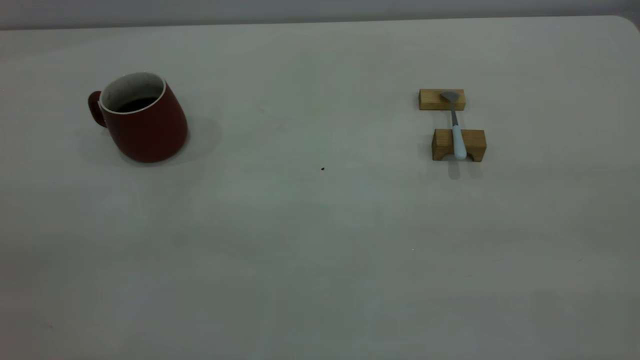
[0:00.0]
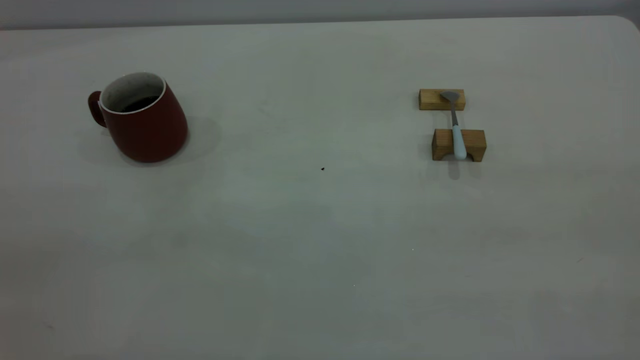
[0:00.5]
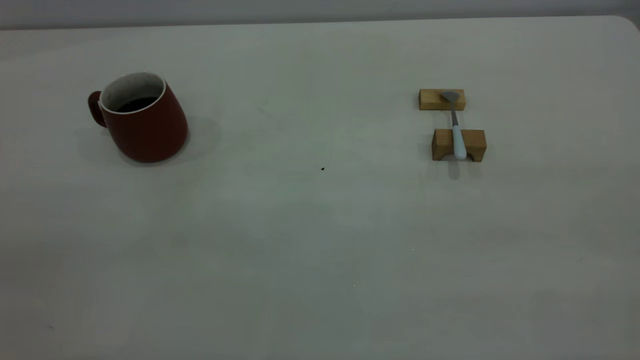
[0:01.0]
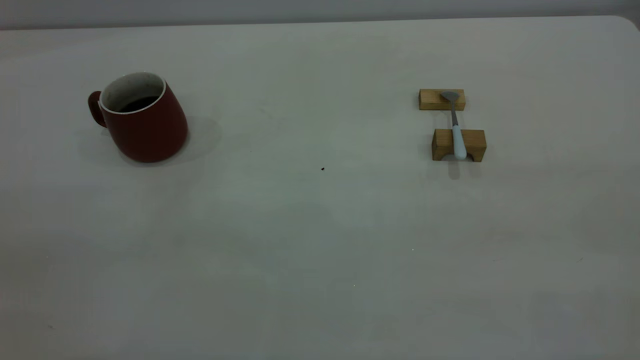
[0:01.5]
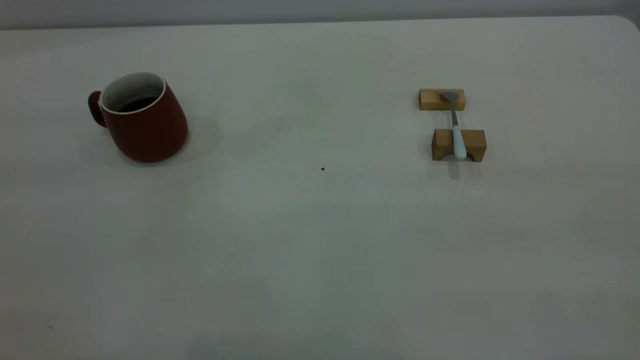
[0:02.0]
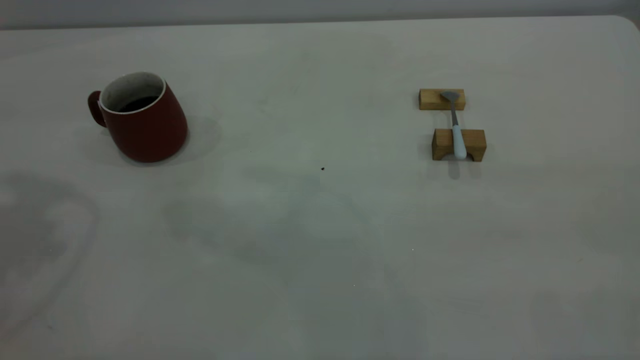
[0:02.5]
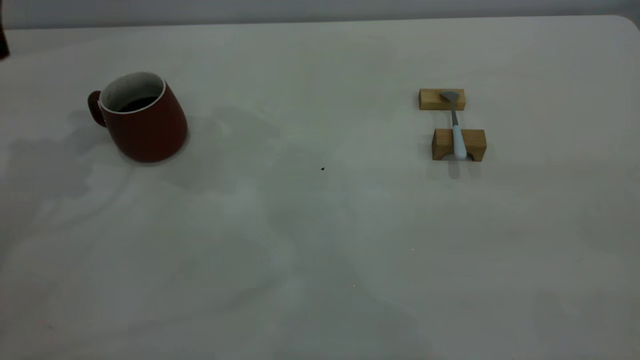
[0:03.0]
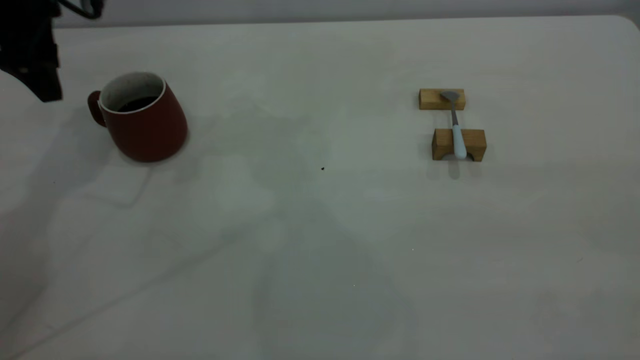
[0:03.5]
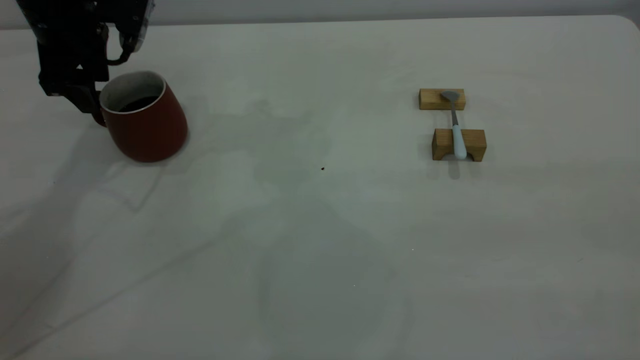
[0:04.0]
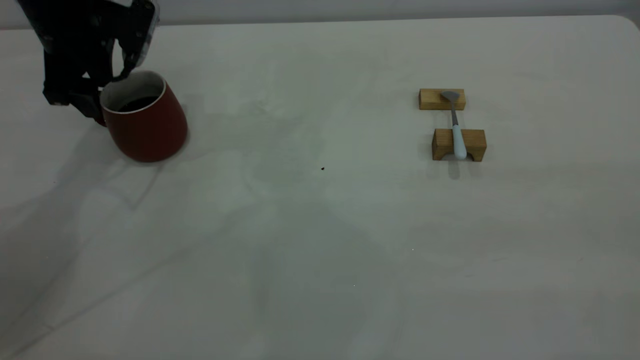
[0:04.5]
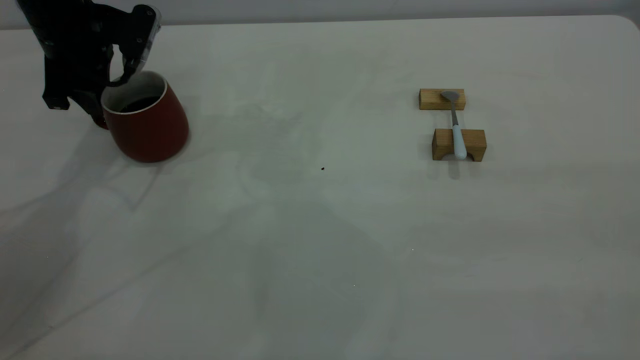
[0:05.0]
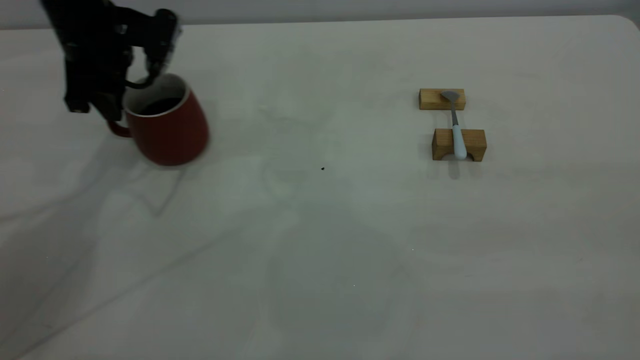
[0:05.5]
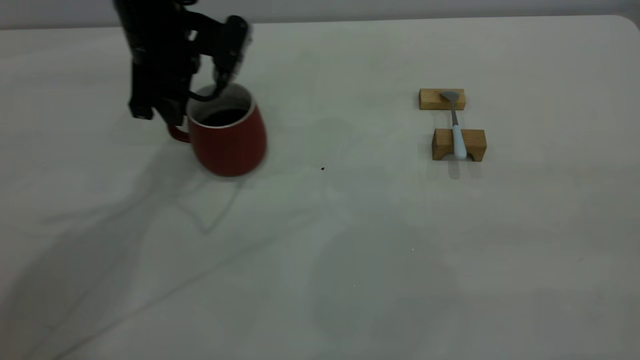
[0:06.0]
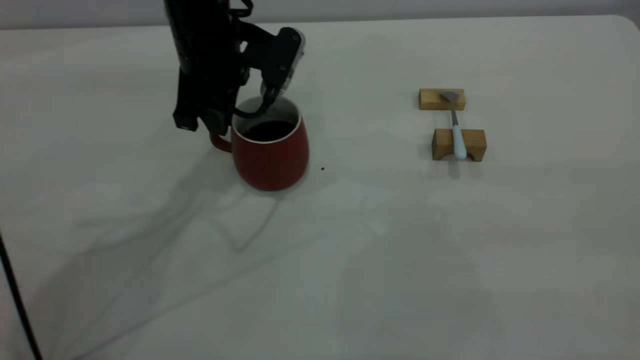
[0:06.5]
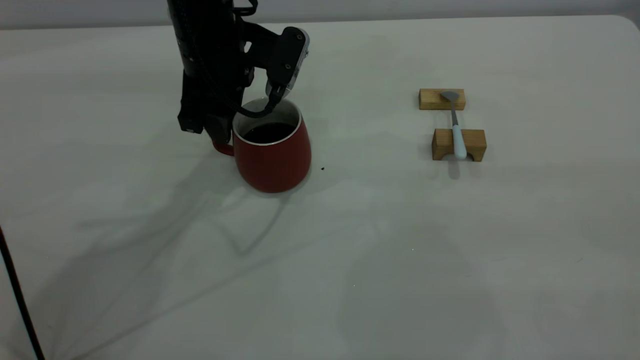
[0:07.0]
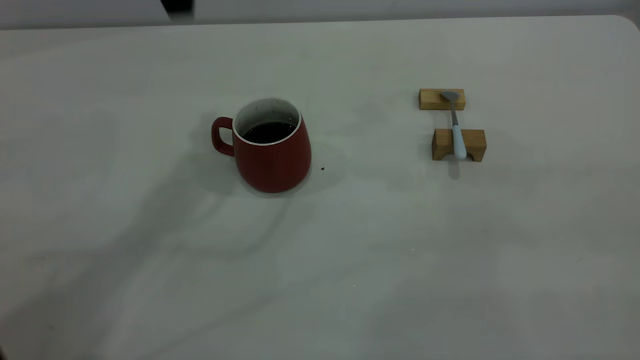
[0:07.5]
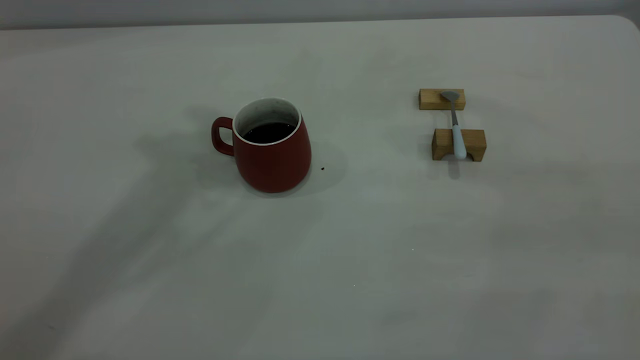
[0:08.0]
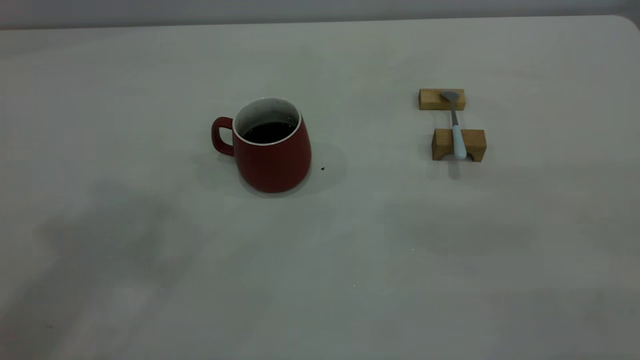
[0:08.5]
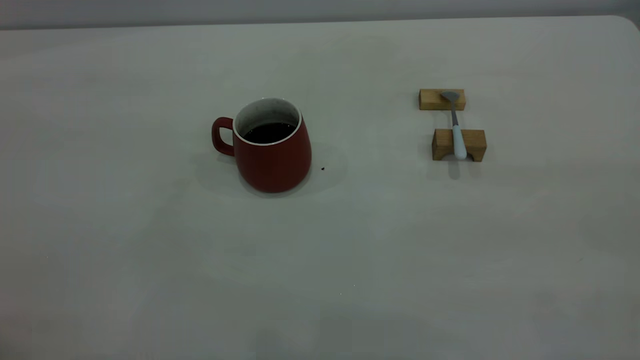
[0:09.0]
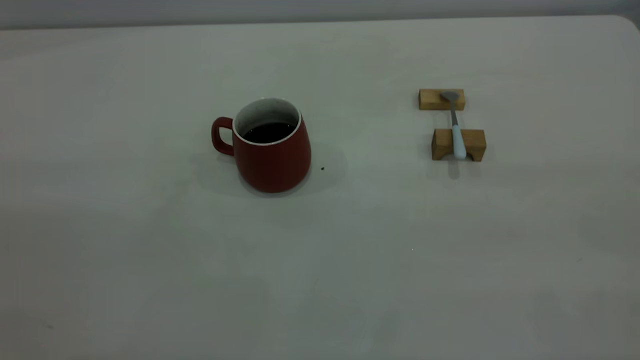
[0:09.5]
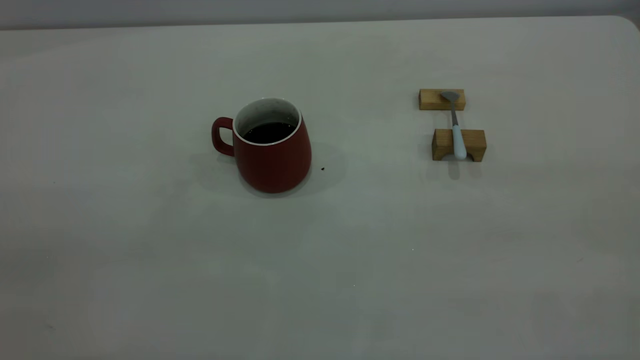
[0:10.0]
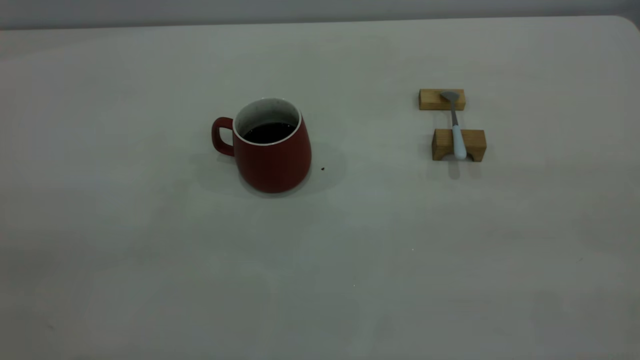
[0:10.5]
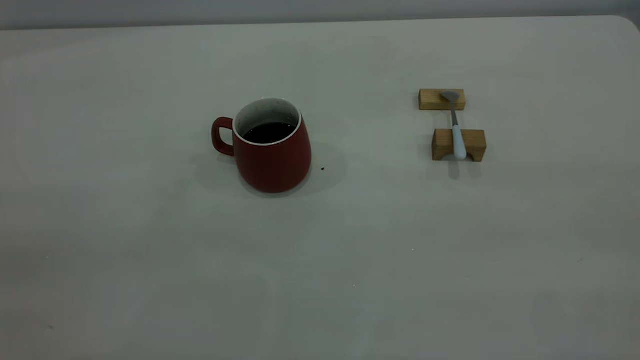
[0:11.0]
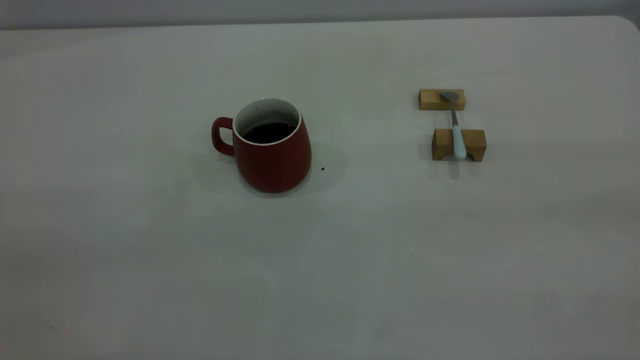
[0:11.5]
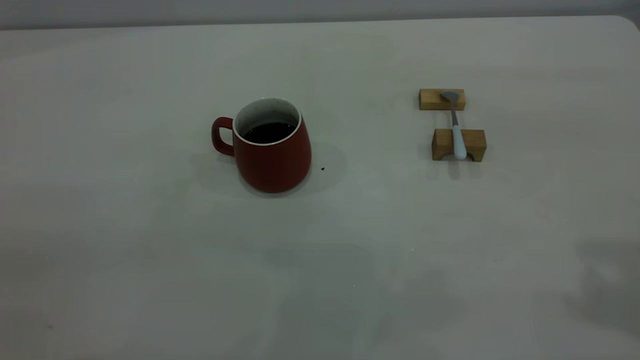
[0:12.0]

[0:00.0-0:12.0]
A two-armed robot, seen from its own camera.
Step, 0:00.0 to 0:07.0: Move the cup with coffee to the center of view.
0:02.0 to 0:04.0: The left gripper moves forward and downward, some 40 cm, and opens its fingers.
0:04.0 to 0:06.0: The left gripper goes some 10 cm to the right, and closes up.
0:06.0 to 0:08.0: The left gripper is displaced upward by approximately 30 cm, and opens its fingers.

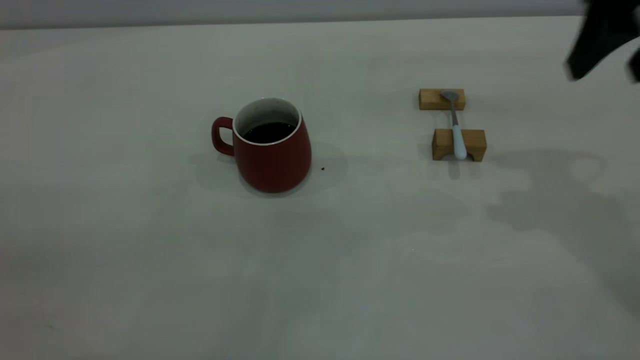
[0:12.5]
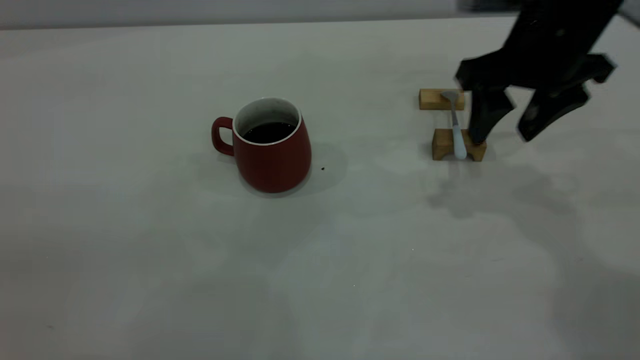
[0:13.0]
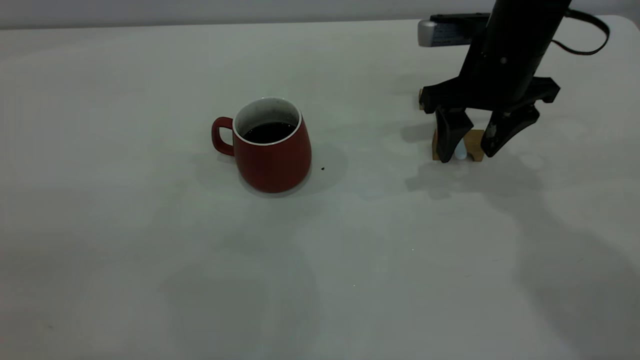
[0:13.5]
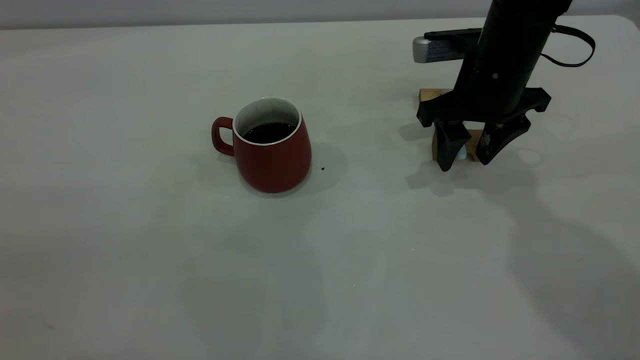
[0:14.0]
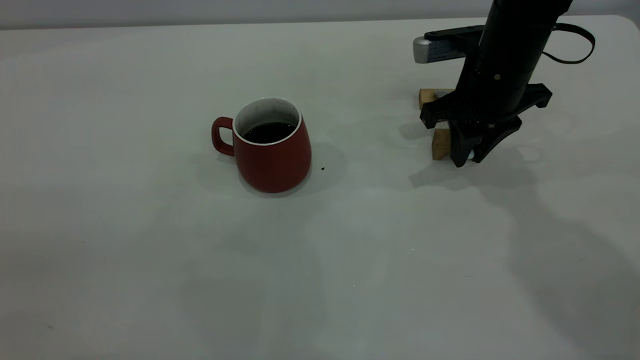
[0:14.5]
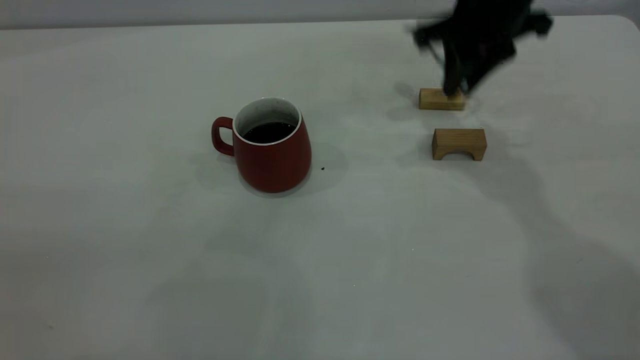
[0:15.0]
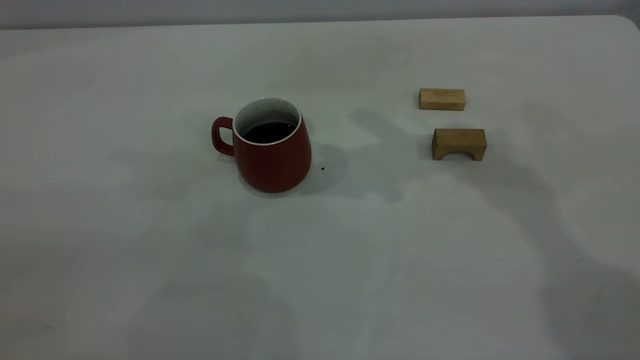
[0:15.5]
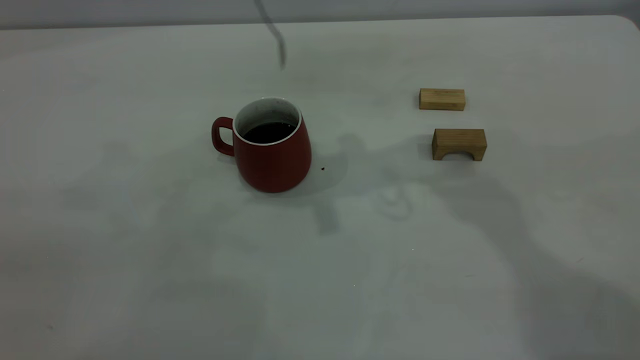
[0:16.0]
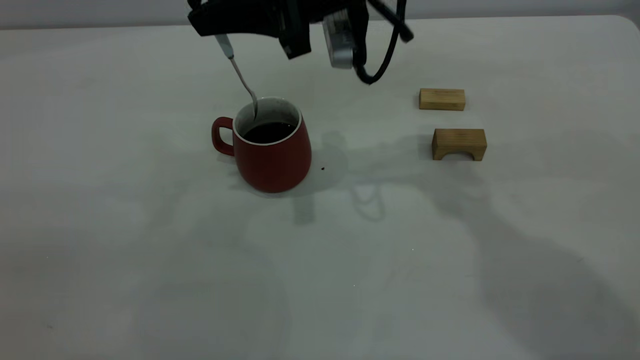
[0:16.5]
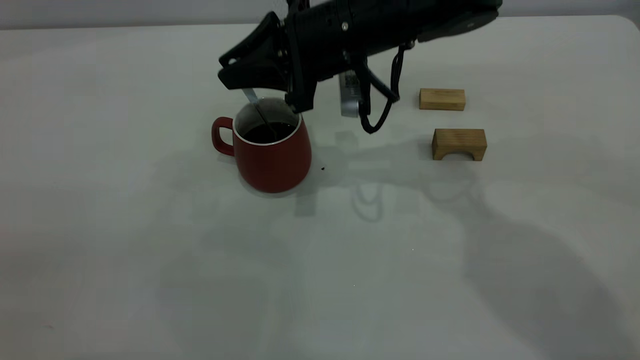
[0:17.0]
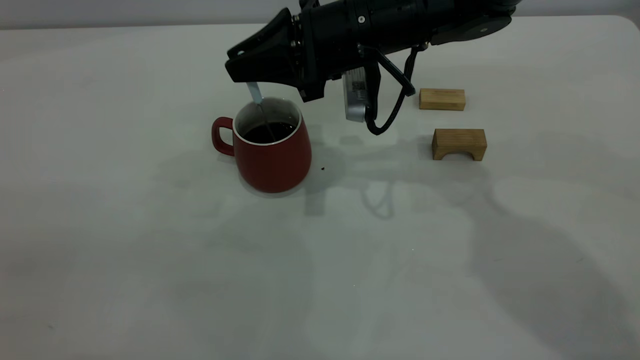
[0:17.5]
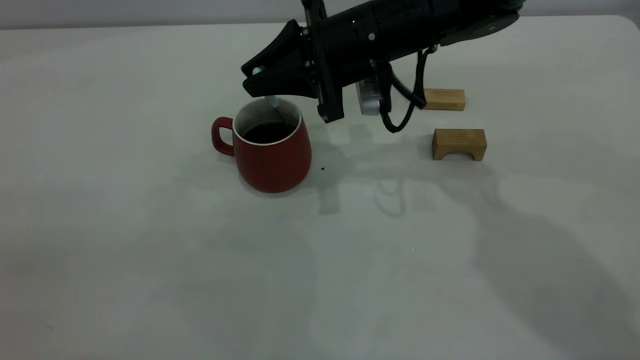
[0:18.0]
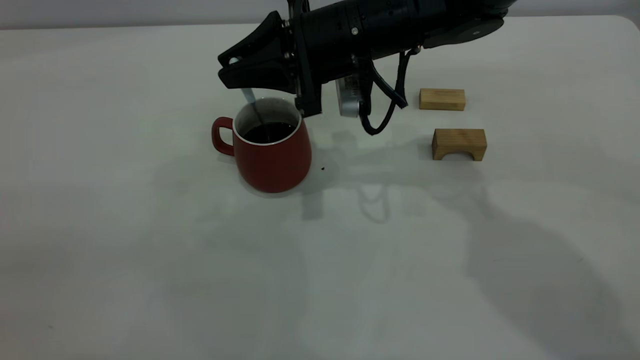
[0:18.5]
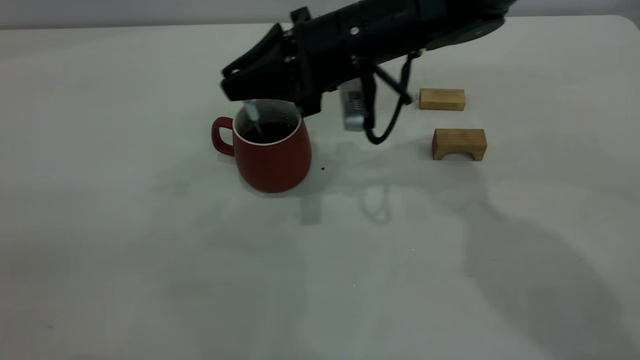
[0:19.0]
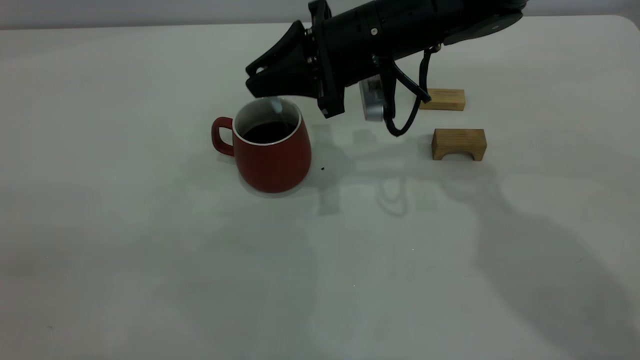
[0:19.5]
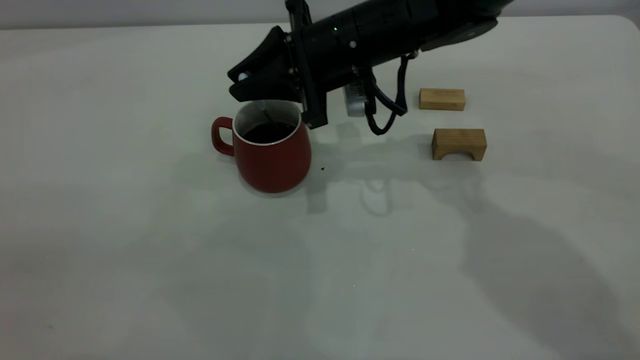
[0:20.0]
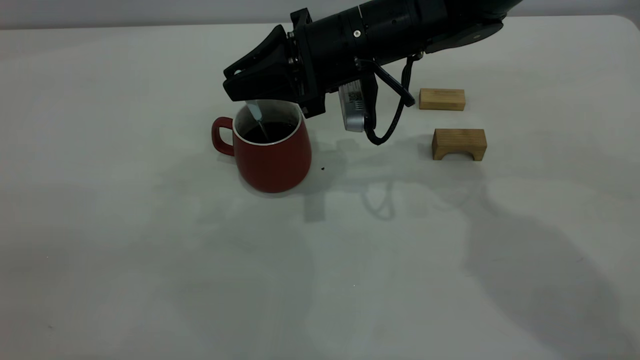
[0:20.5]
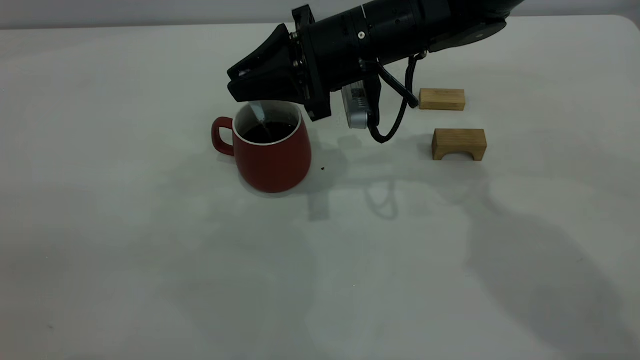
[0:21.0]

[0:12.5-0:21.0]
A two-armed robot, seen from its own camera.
Step, 0:12.5 to 0:14.5: Pick up the spoon.
0:12.5 to 0:14.5: The right gripper shifts about 20 cm downward, forward and to the left, and closes up.
0:14.5 to 0:16.5: The right gripper moves to the left and upward, roughly 15 cm.
0:16.5 to 0:19.0: The right gripper travels downward by approximately 5 cm.
0:19.0 to 0:21.0: There are only small adjustments of the grippers.
